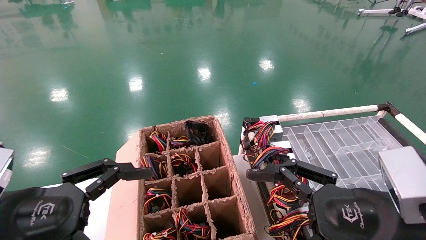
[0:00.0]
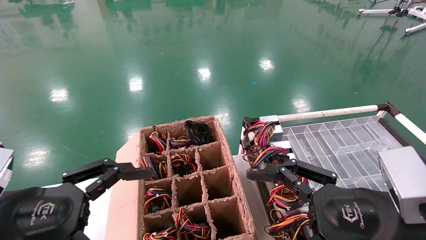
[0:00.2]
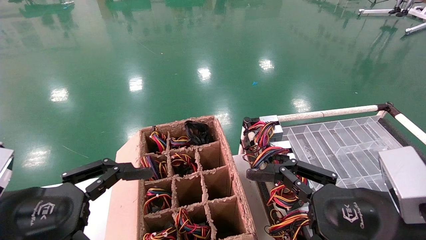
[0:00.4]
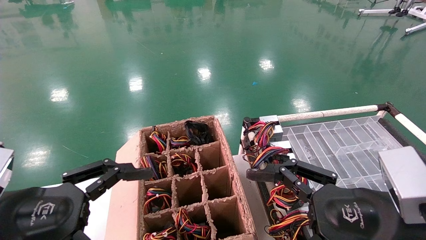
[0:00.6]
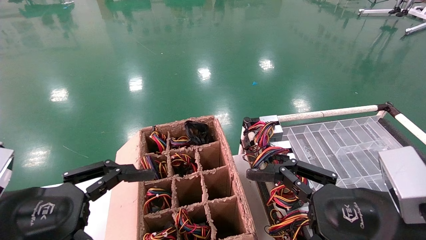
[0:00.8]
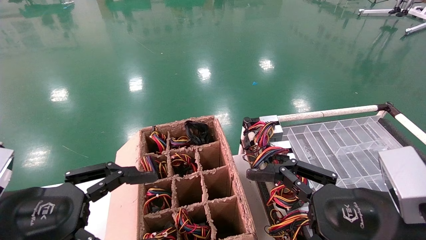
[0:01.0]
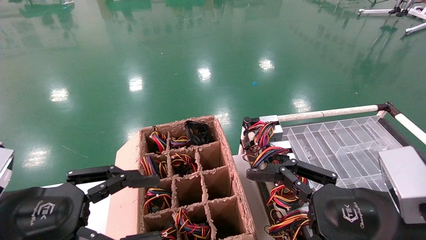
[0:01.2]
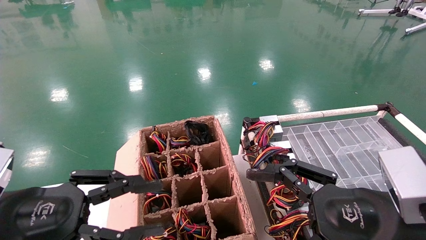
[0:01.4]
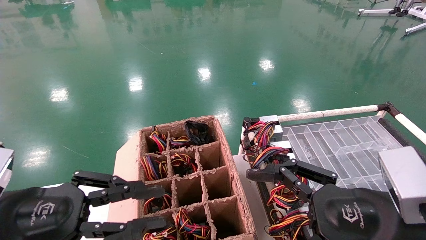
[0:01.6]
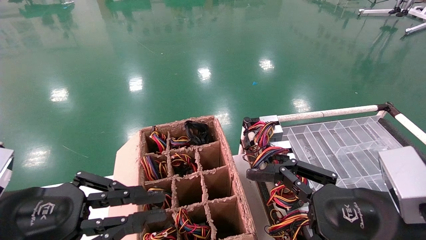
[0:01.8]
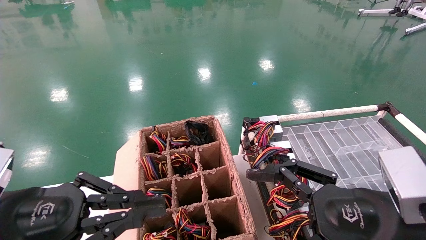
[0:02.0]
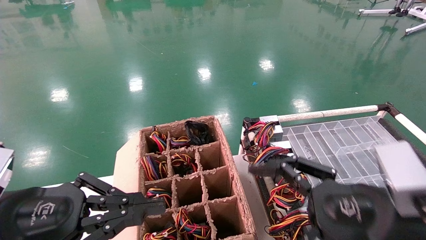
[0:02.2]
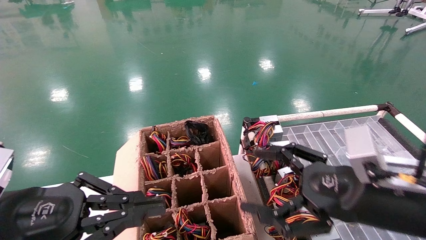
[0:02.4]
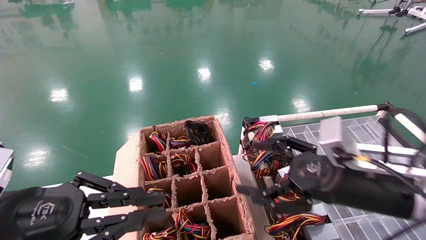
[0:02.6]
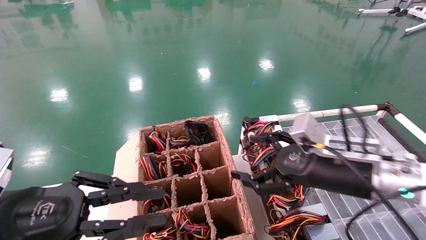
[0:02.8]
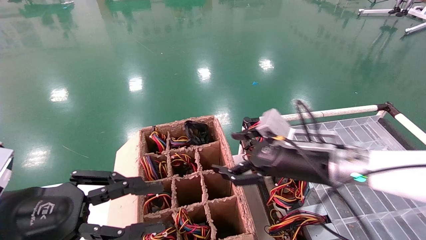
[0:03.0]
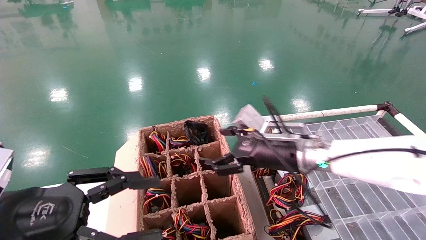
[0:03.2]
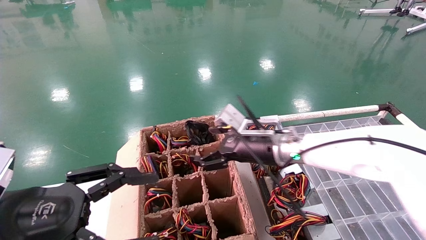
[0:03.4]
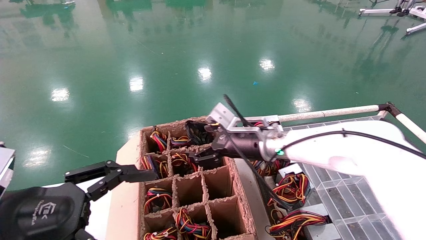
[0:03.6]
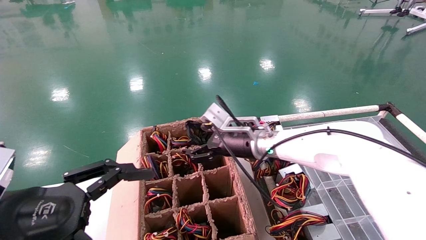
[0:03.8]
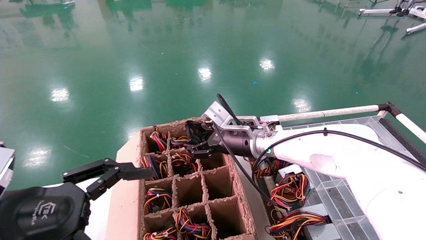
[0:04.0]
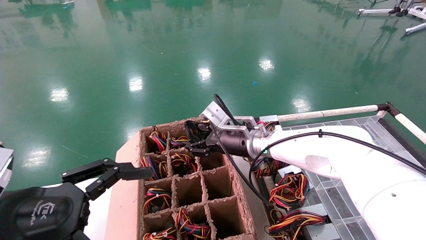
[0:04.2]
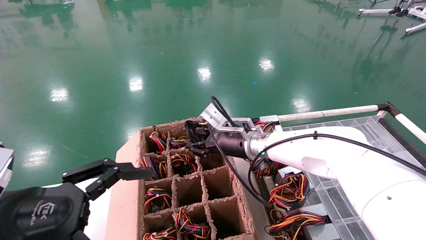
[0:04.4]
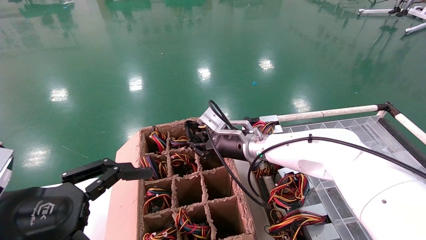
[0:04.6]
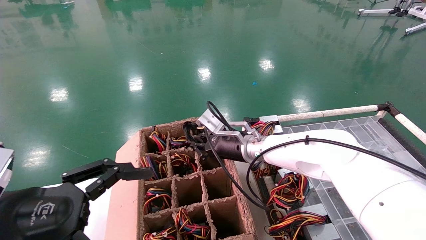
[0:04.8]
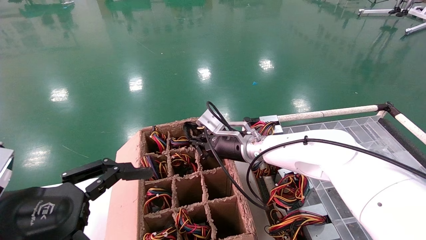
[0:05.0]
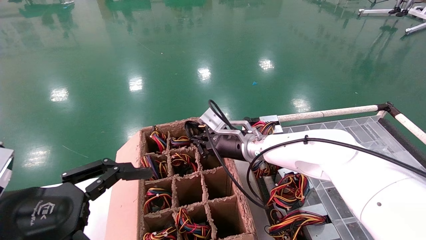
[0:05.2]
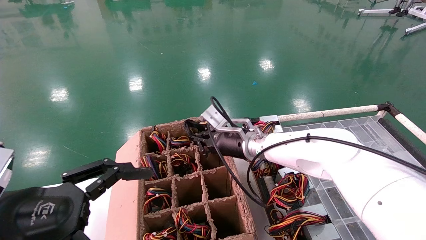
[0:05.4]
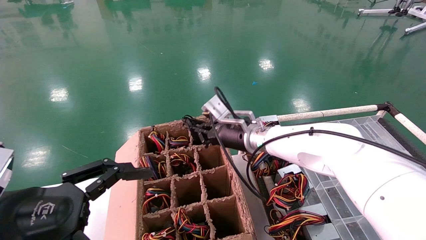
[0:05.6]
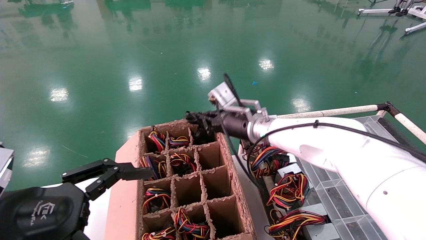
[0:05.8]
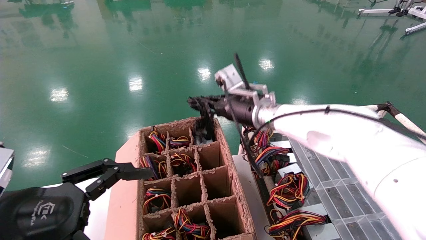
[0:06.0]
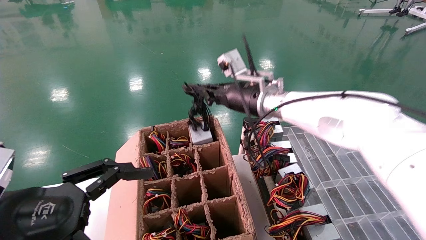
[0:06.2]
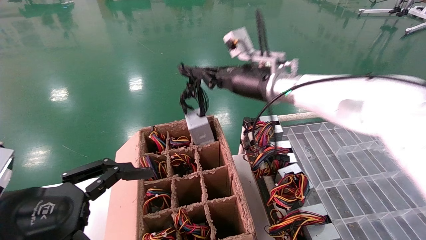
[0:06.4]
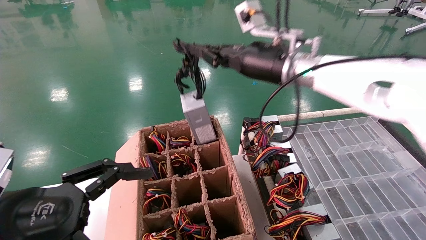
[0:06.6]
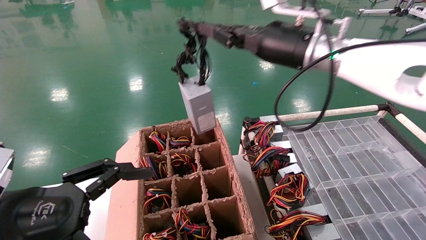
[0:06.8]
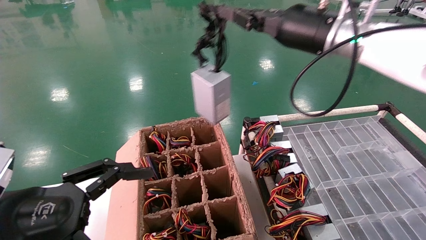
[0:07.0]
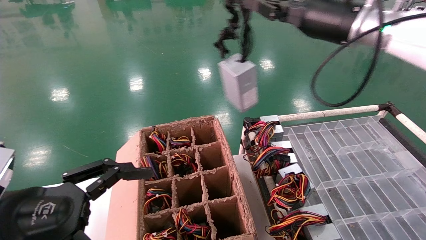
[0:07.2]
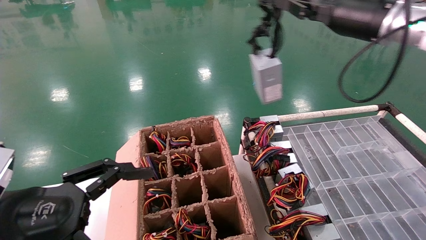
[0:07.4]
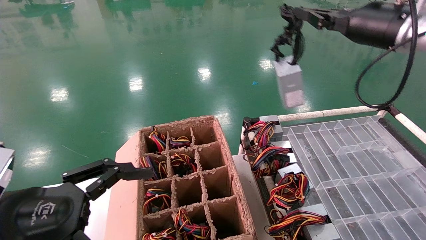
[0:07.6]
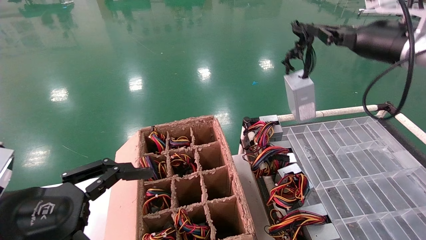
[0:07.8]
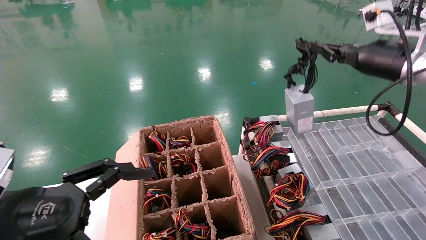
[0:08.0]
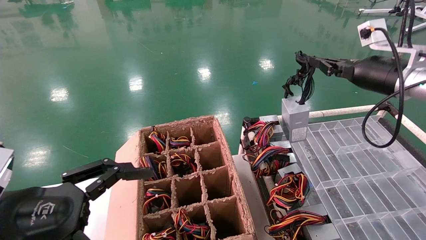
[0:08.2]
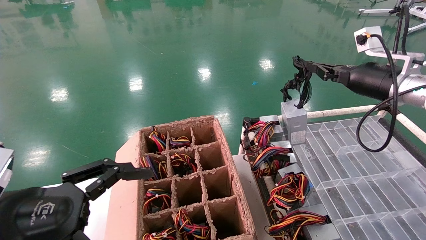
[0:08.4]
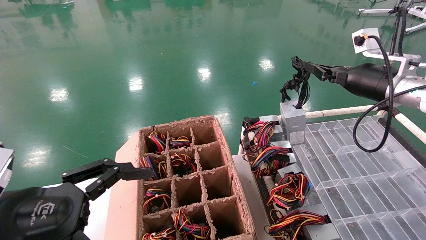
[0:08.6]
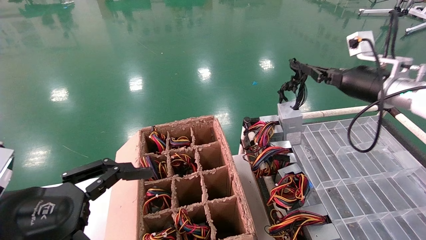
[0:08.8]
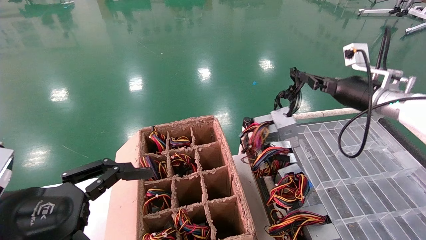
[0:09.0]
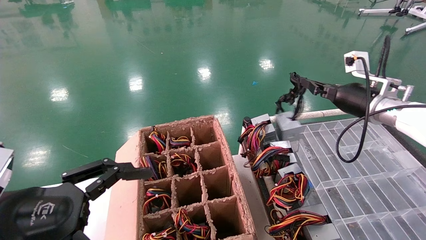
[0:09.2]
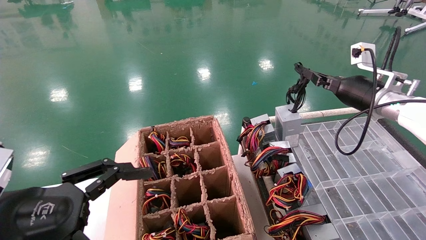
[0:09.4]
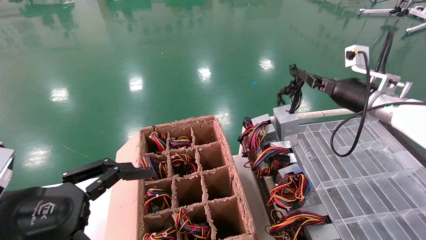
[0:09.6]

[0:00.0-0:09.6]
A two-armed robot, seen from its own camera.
Step, 0:02.2 to 0:05.2: Grab and lift the power supply from the large box.
0:00.0 to 0:01.6: The left gripper closes.
0:01.6 to 0:03.2: The right gripper travels forward and to the left by about 20 cm, while the left gripper closes, then opens again.
0:03.2 to 0:04.8: The right gripper heads forward and to the left, covering roughly 10 cm, and closes its fingers. Meanwhile the left gripper opens up.
0:04.8 to 0:06.4: The right gripper travels upward by about 15 cm.
0:06.4 to 0:08.0: The right gripper goes some 25 cm to the right.
0:08.0 to 0:09.6: The right gripper is displaced downward by some 10 cm.

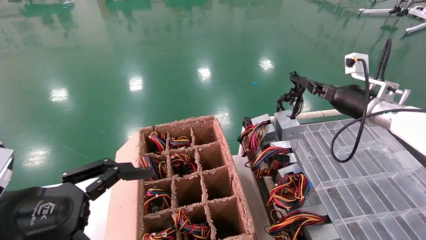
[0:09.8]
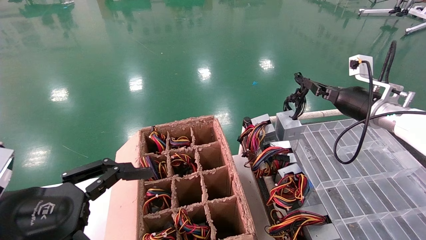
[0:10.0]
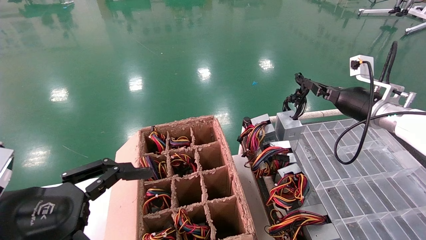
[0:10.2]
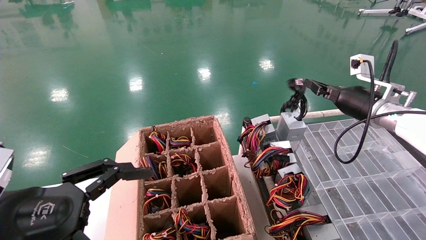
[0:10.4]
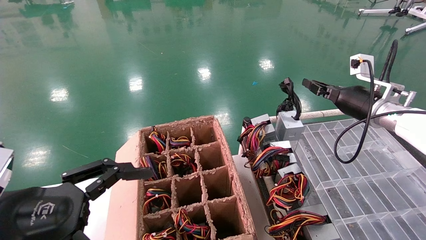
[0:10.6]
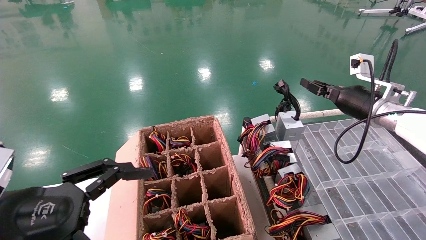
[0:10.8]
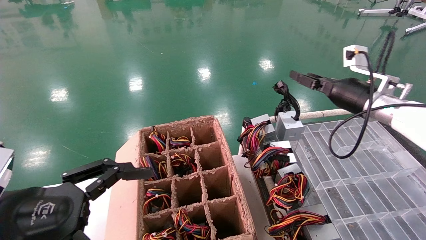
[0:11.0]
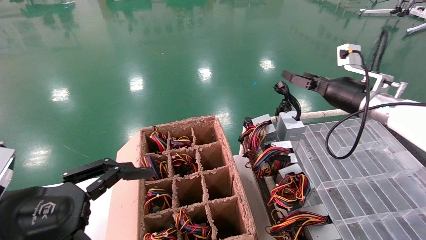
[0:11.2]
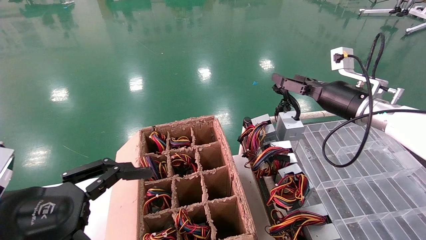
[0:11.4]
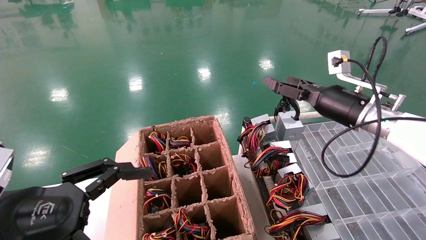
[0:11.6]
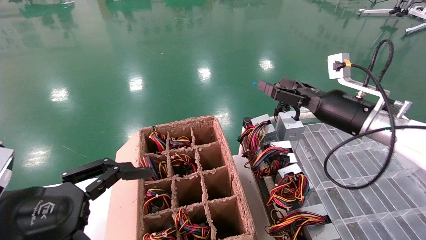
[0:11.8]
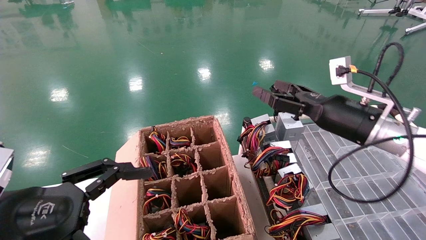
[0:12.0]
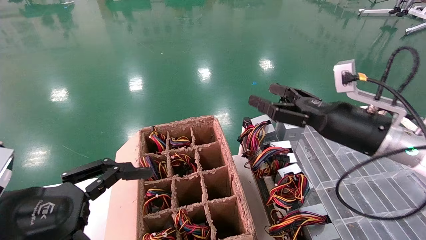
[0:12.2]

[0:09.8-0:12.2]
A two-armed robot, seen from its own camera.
0:09.8 to 0:11.0: The right gripper opens up.
0:11.0 to 0:12.2: The right gripper goes some 10 cm backward and to the left, and opens up.
